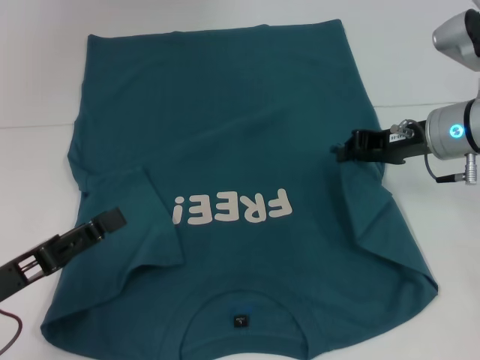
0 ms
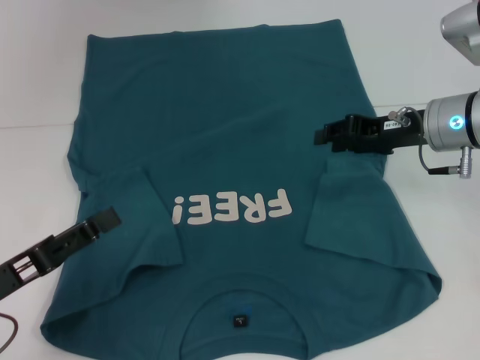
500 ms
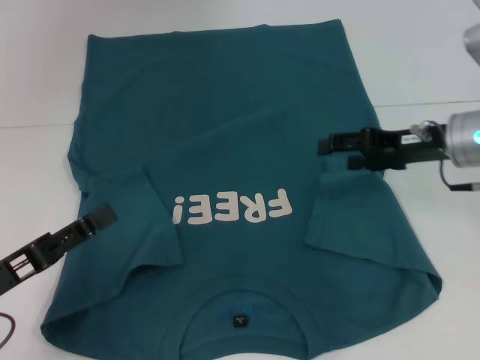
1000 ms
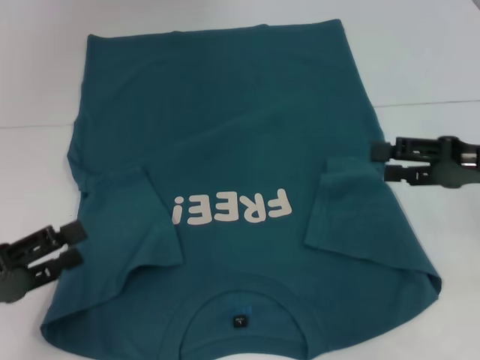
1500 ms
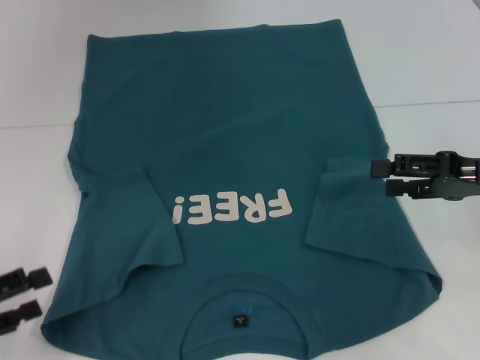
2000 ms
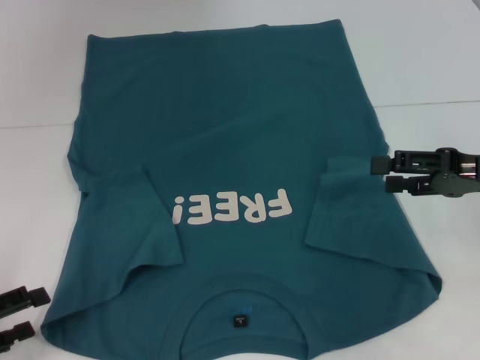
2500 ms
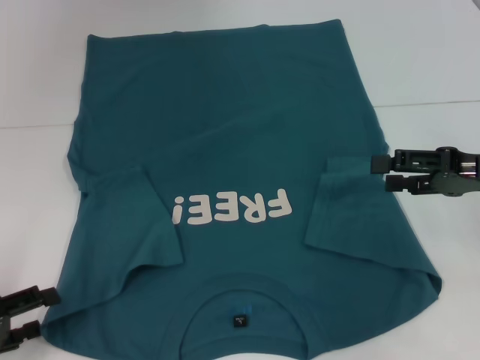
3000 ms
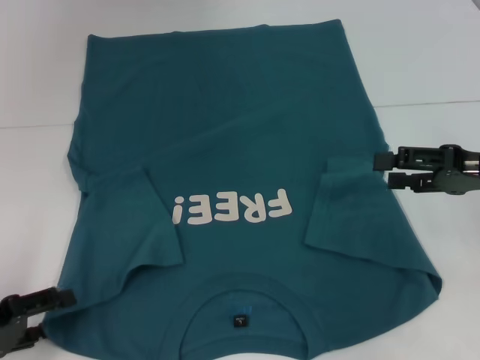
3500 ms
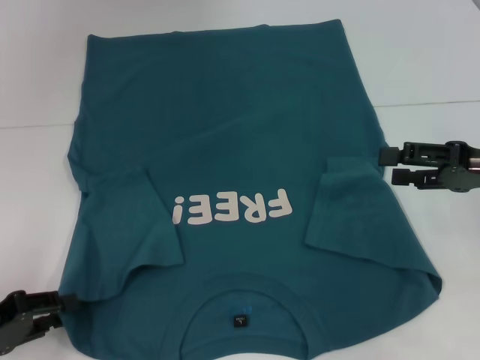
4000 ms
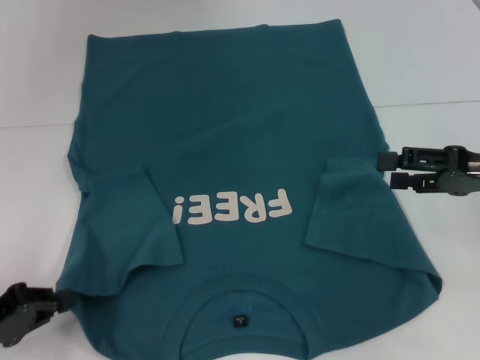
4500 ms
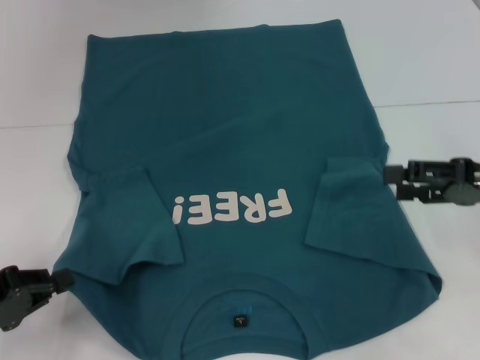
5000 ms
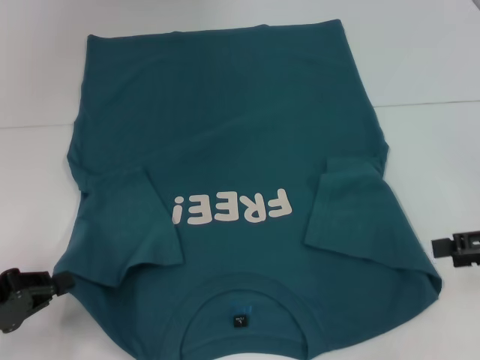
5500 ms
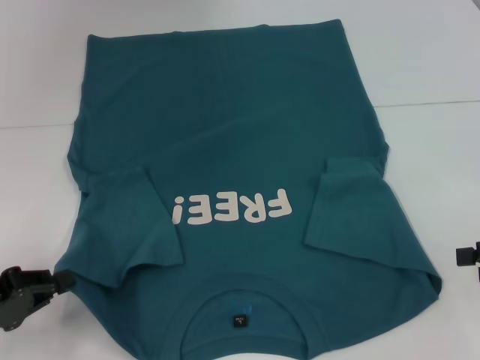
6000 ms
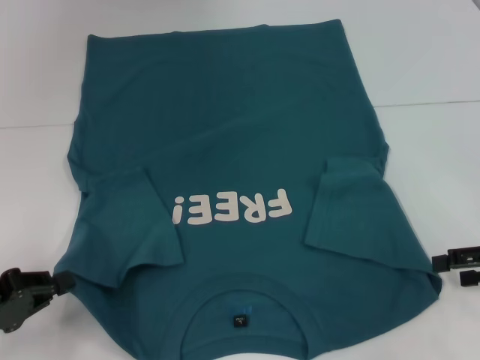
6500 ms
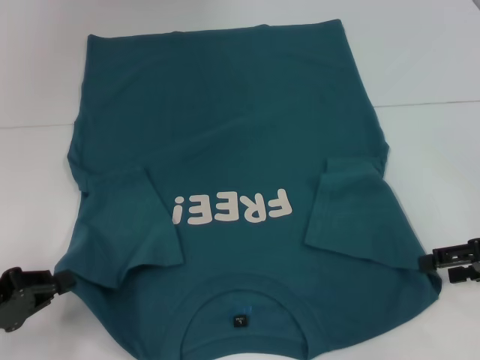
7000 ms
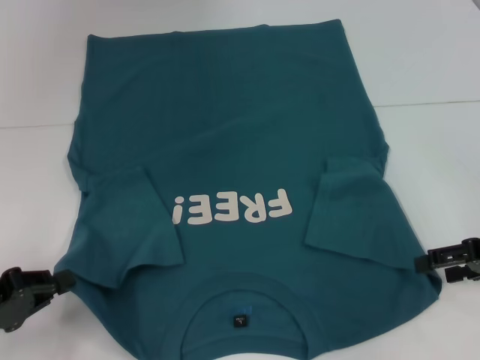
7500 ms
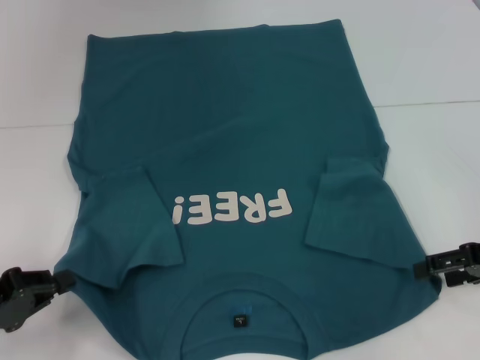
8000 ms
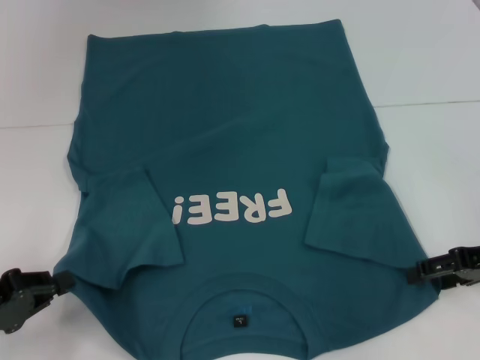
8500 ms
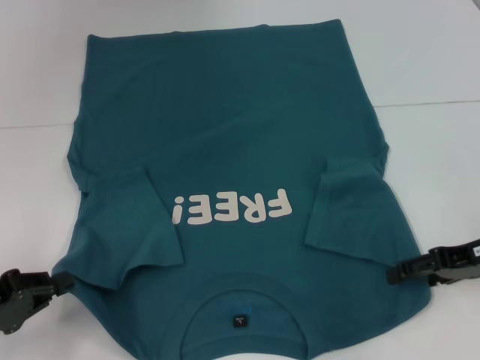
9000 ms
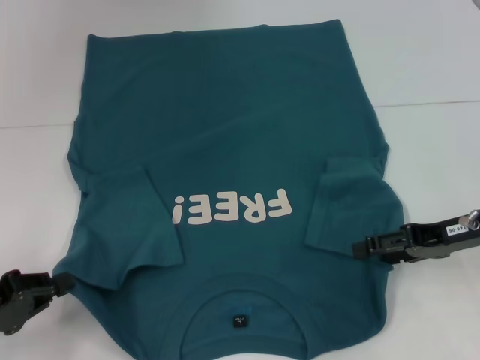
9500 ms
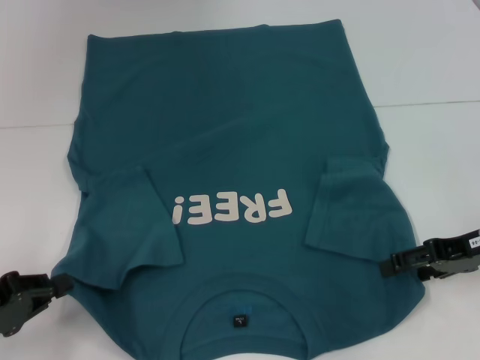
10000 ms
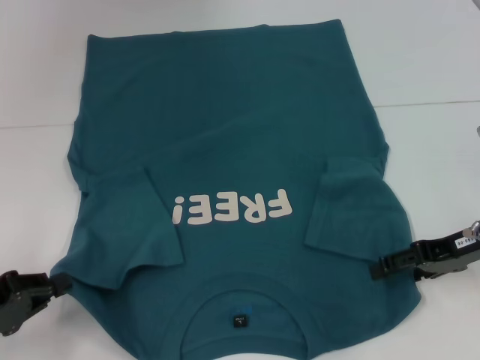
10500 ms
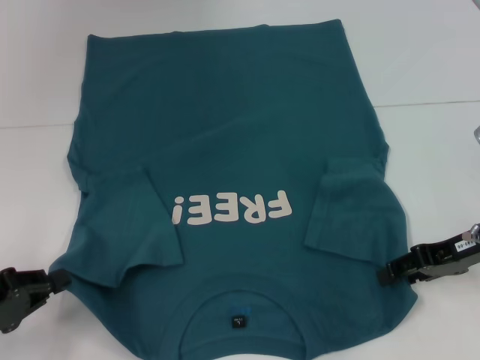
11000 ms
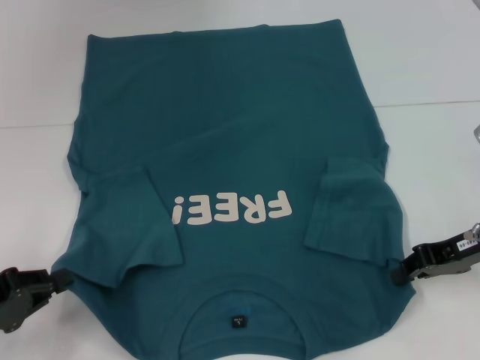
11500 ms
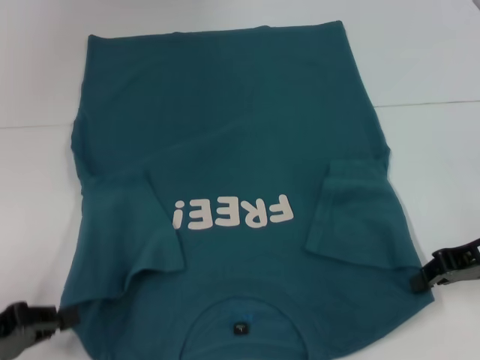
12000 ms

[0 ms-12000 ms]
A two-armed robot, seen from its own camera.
Step, 1000 ms to 4500 ms: Grab the bottom left corner with your left hand.
Step, 5000 ms to 11500 ms: Grab the bottom right corner with your right hand.
0 ms to 2000 ms: The left gripper shifts approximately 5 cm to the left; the right gripper travels backward and to the right by some 10 cm, and opens up.
2000 ms to 4000 ms: The grippers make only small movements.
4000 ms to 6000 ms: The right gripper moves to the right and backward, about 10 cm, while the left gripper closes its fingers.
6000 ms to 8000 ms: The right gripper shifts by some 5 cm.
8000 ms to 10000 ms: The grippers make only small movements.
10000 ms to 12000 ms: The right gripper closes its fingers.

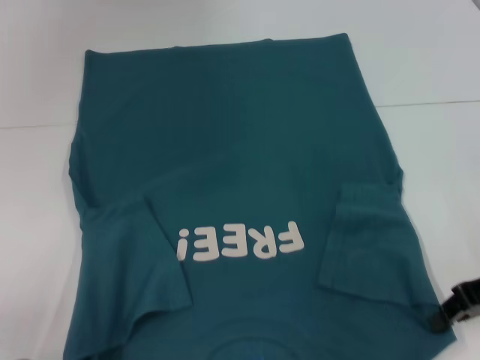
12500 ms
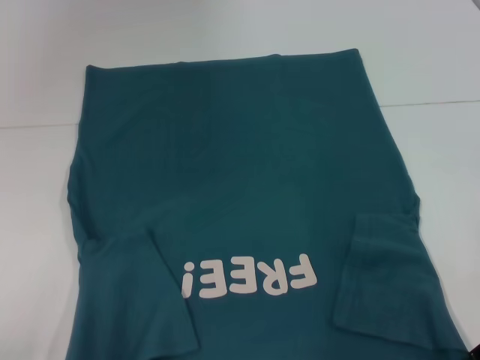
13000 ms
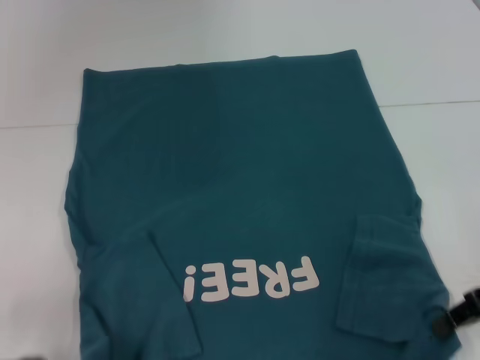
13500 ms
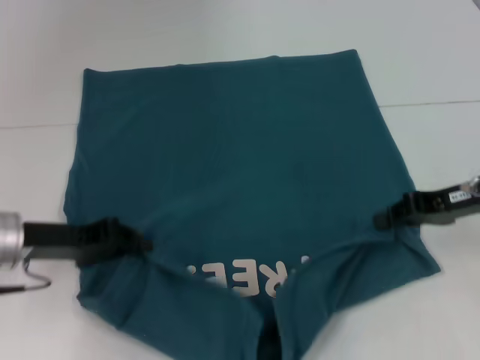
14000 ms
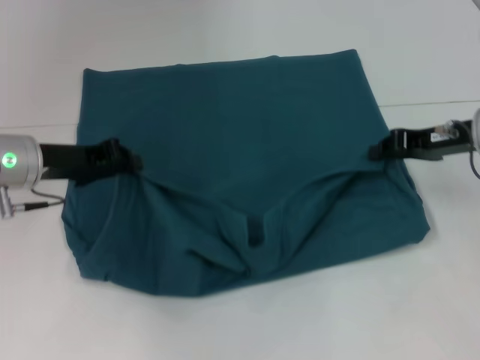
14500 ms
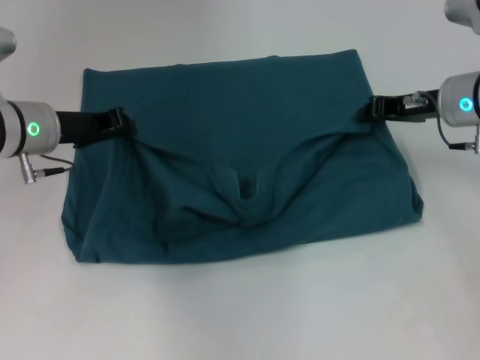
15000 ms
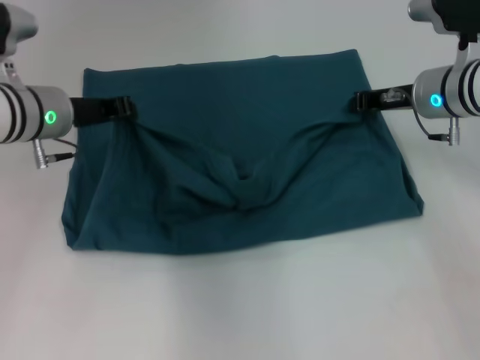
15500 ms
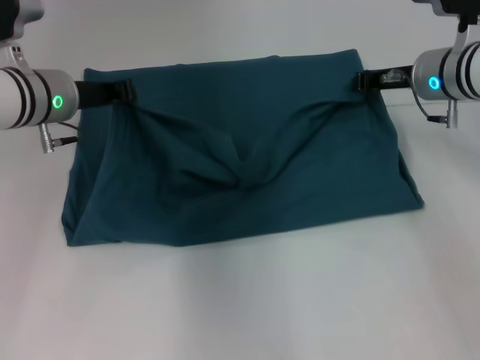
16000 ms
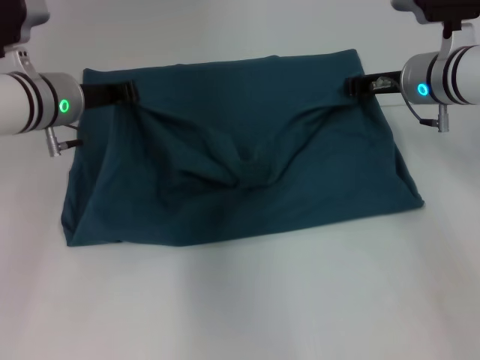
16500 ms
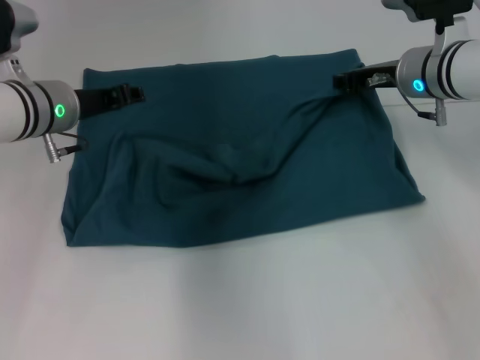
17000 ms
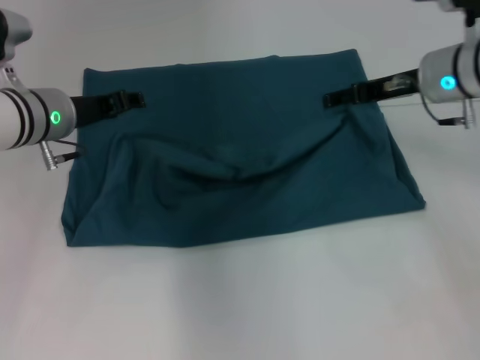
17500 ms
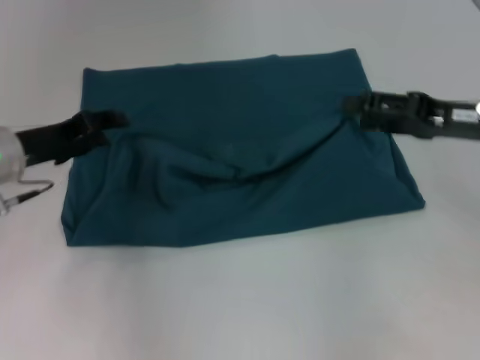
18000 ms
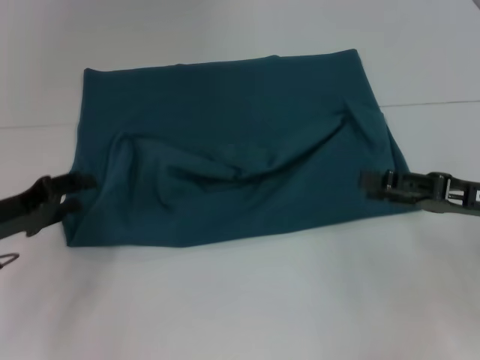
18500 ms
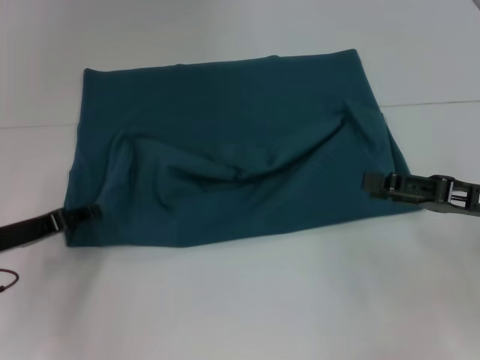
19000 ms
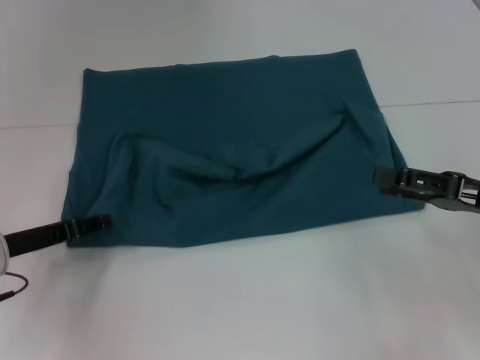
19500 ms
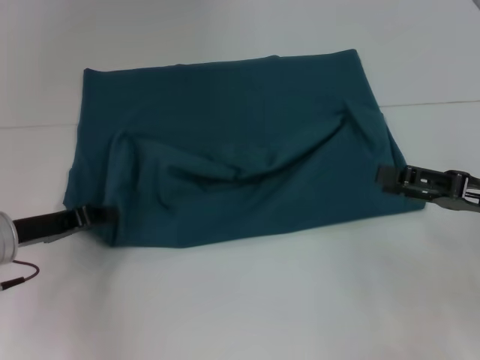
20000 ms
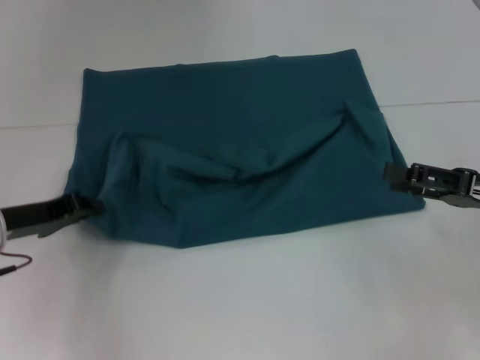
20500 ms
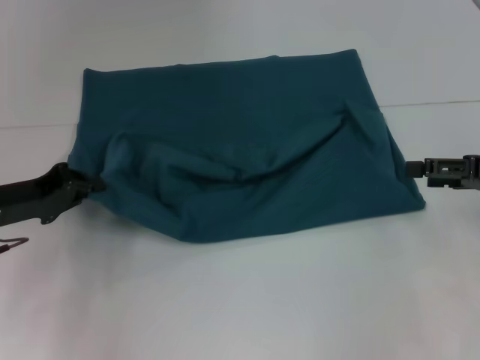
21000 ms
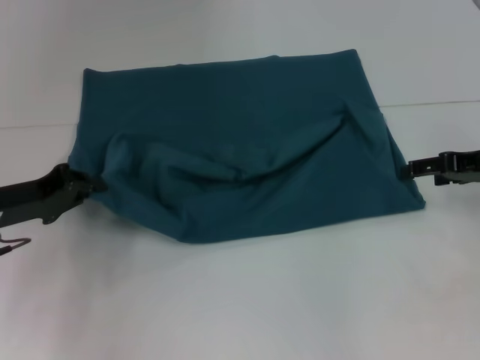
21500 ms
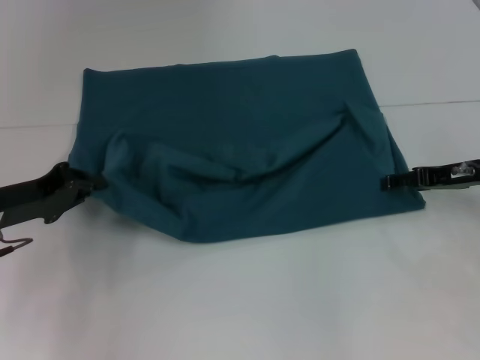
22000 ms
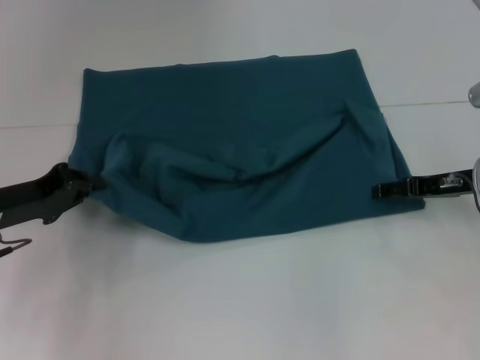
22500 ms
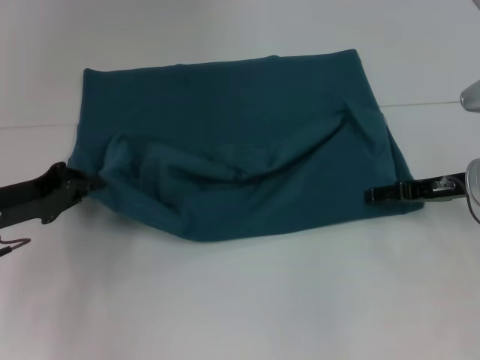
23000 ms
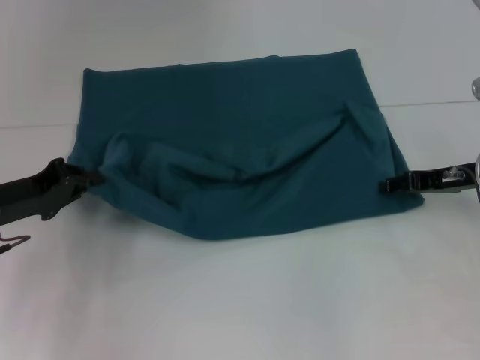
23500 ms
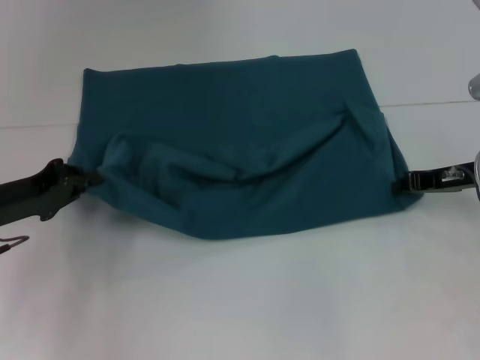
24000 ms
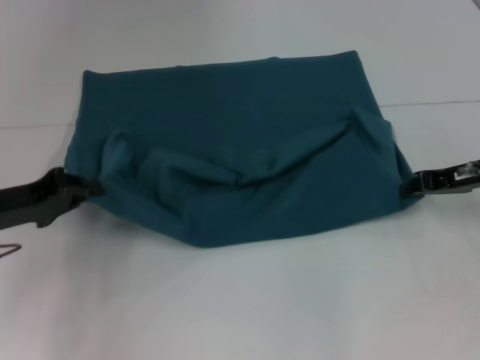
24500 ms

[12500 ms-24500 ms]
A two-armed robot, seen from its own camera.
Step, 12500 ms to 17000 ms: Fold the clothes to the left.
Step, 12500 ms to 17000 ms: Fold the clothes to the right.
12500 ms to 14500 ms: The left gripper is displaced forward and to the right by roughly 20 cm; the right gripper goes about 10 cm forward.
14500 ms to 16500 ms: The right gripper shifts some 10 cm forward and to the left; the left gripper heads forward, covering some 5 cm.
16500 ms to 18500 ms: The right gripper shifts roughly 20 cm backward and to the right, and opens its fingers. Meanwhile the left gripper travels backward, to the left and downward by some 20 cm, and opens up.
18500 ms to 20500 ms: The left gripper closes up.
20500 ms to 22500 ms: The right gripper moves forward, approximately 10 cm.
22500 ms to 24500 ms: The right gripper closes its fingers.

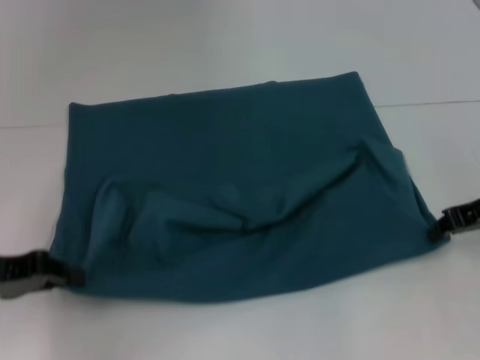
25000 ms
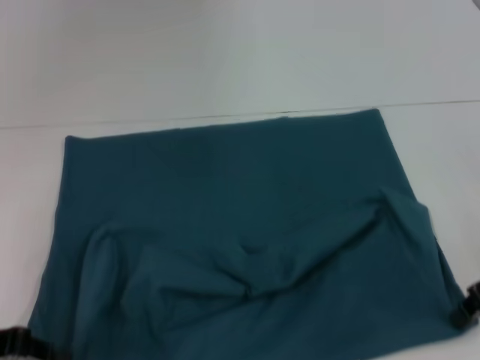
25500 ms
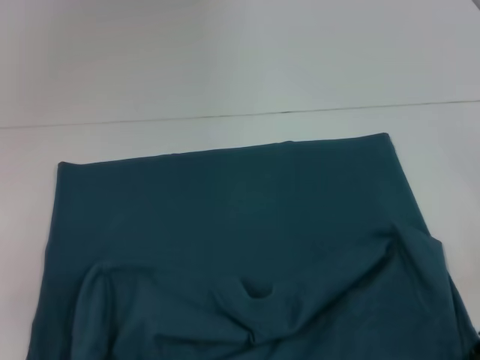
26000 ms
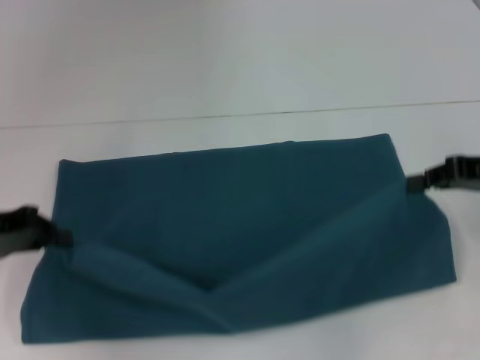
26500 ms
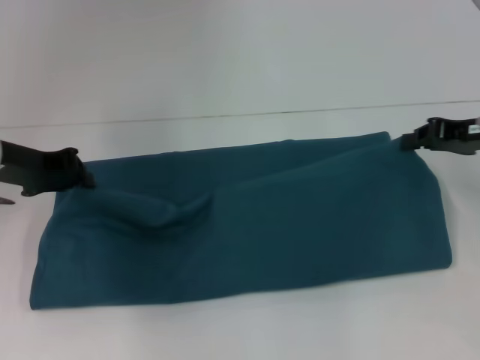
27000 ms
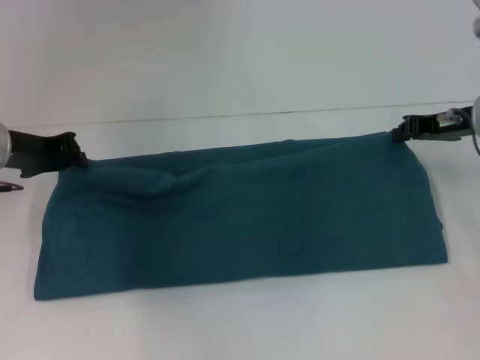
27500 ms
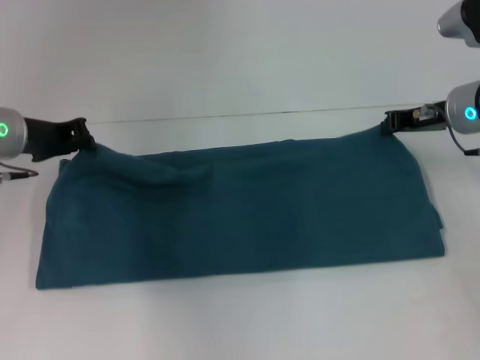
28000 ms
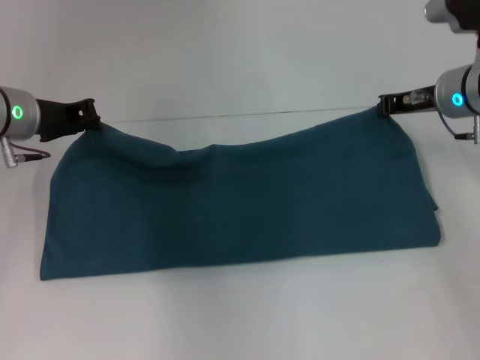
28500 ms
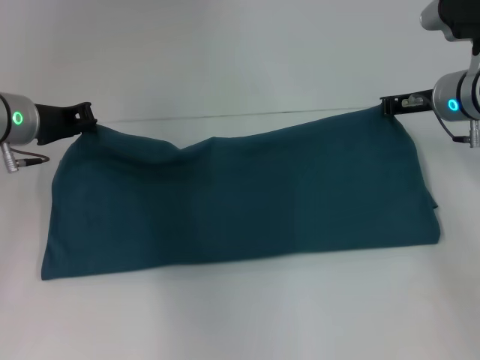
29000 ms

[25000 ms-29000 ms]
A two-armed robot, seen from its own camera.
25000 ms to 27000 ms: The left gripper travels forward by some 10 cm. The right gripper moves some 10 cm backward and comes back.
27000 ms to 29000 ms: The right gripper heads forward and to the left, covering approximately 10 cm.
